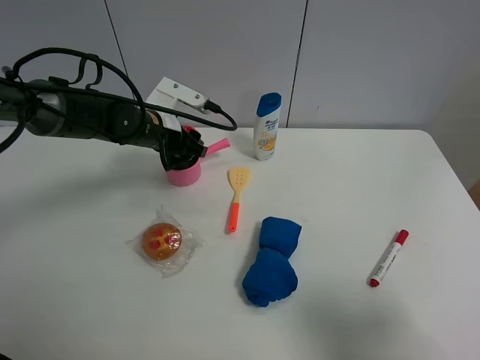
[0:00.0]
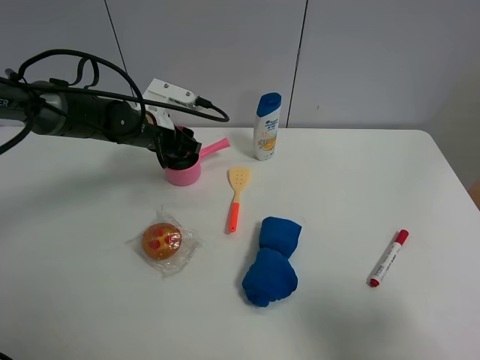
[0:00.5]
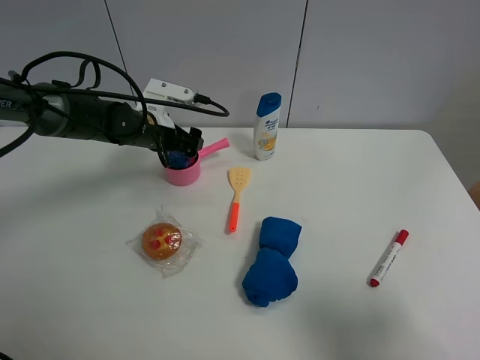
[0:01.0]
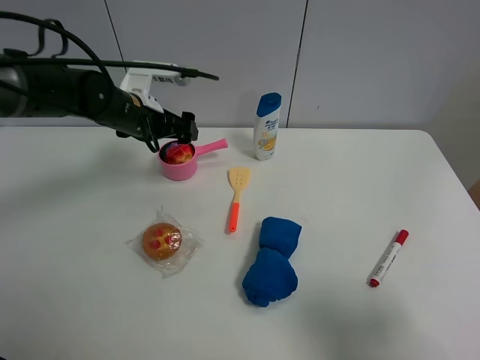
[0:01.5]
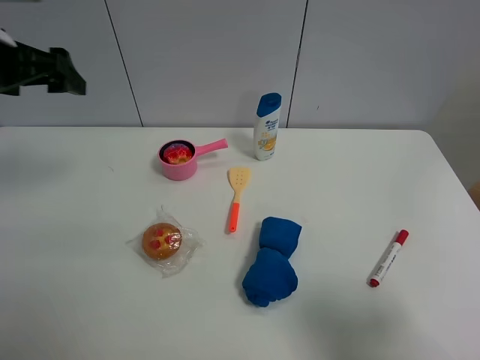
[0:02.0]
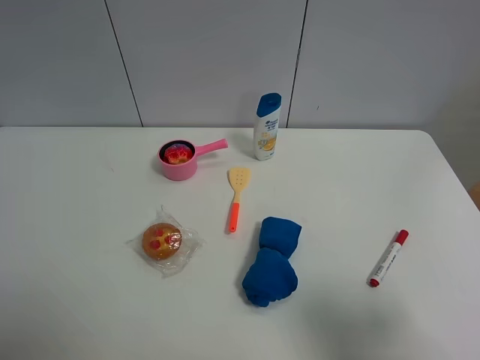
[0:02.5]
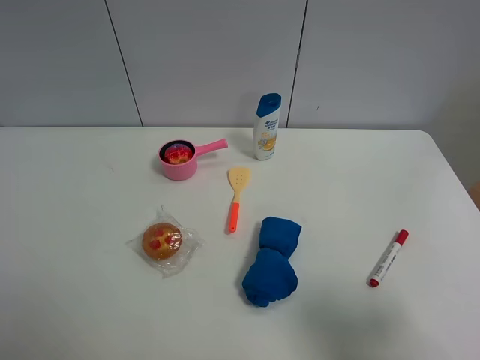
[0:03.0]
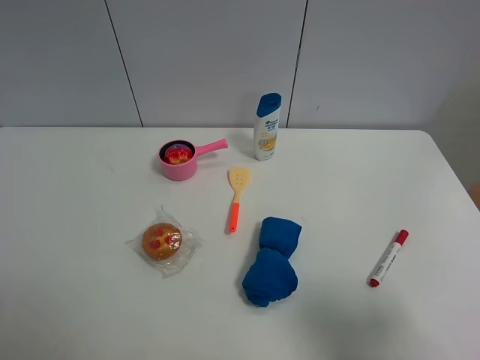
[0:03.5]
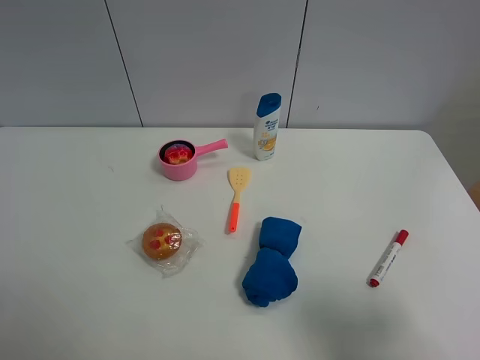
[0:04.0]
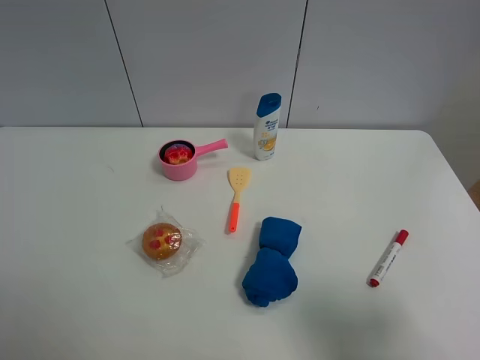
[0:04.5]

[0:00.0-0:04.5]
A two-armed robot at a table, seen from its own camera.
Task of the whole recording: the gripper move the object.
0:00.0 to 0:02.0: The left gripper heads upward, to the left and backward, covering approximately 25 cm, and opens up.
0:02.0 to 0:04.5: The left gripper goes approximately 30 cm backward.

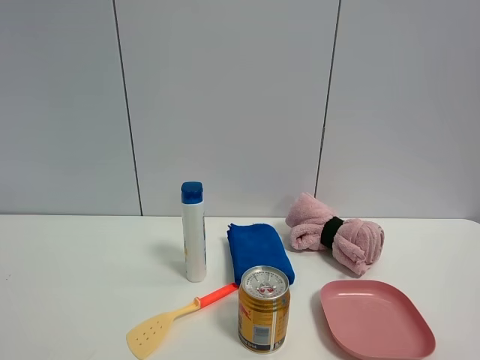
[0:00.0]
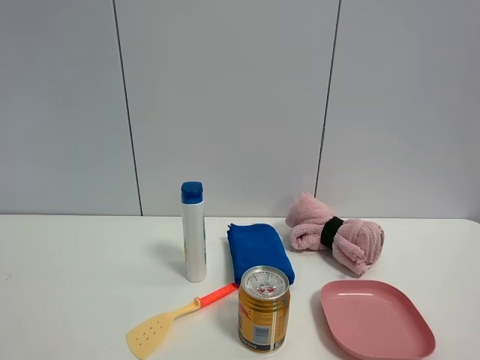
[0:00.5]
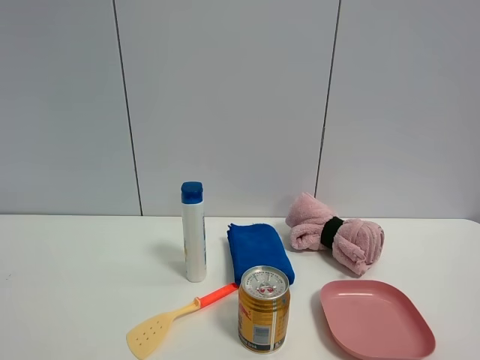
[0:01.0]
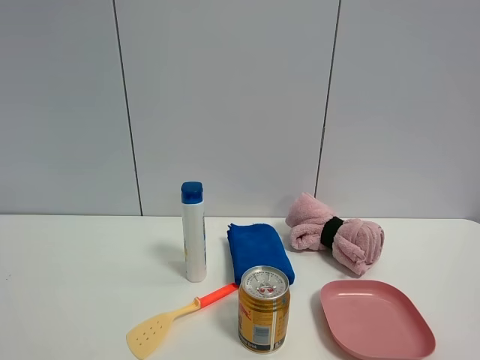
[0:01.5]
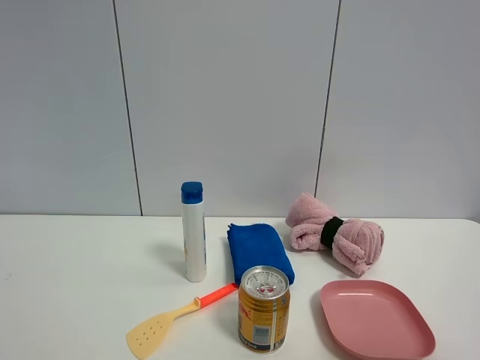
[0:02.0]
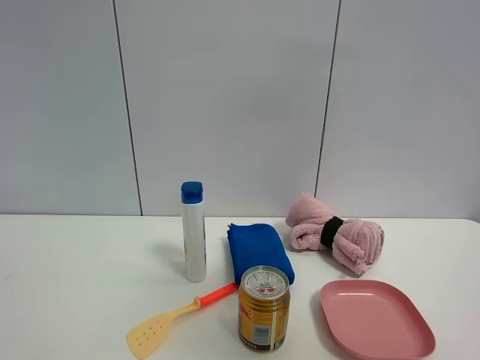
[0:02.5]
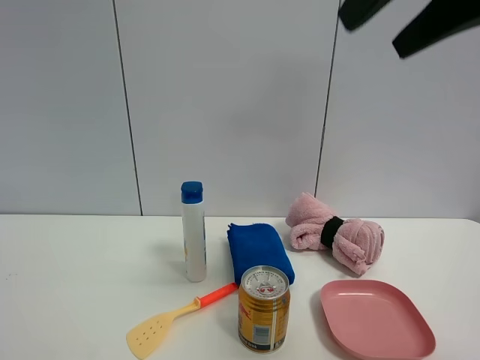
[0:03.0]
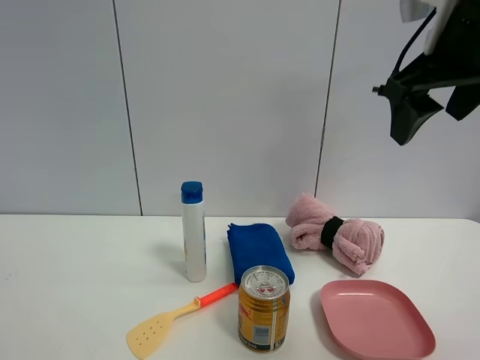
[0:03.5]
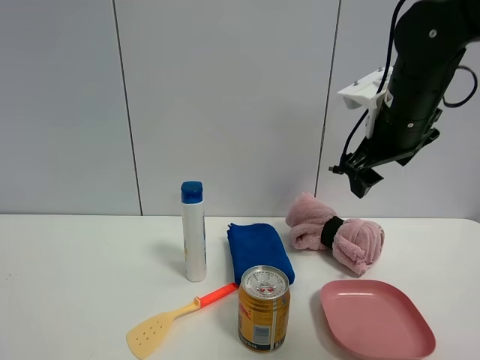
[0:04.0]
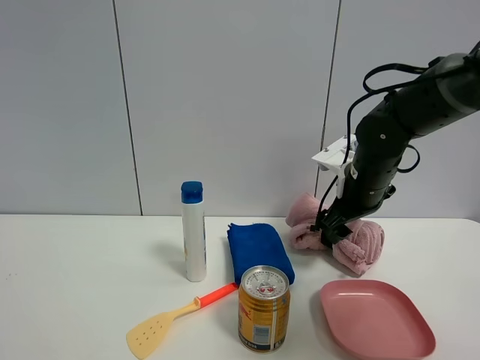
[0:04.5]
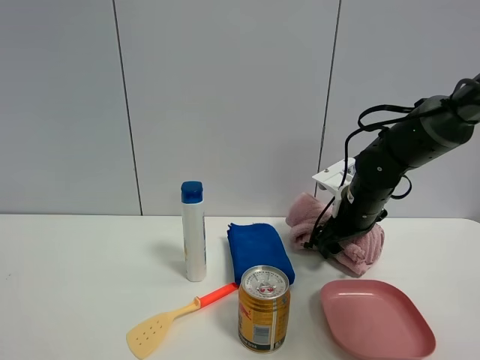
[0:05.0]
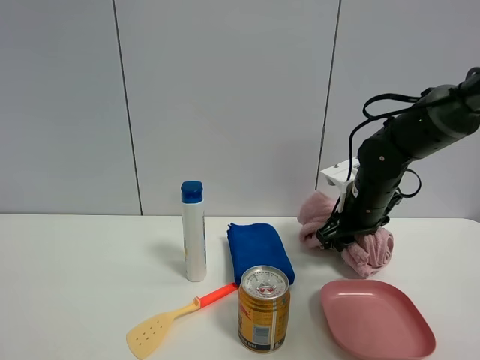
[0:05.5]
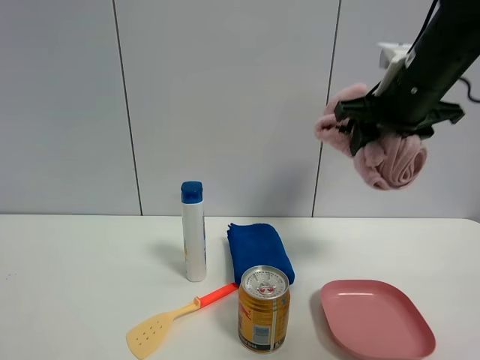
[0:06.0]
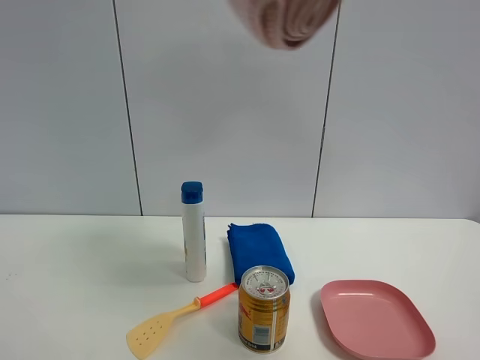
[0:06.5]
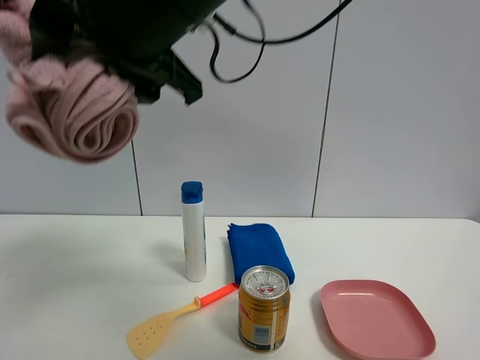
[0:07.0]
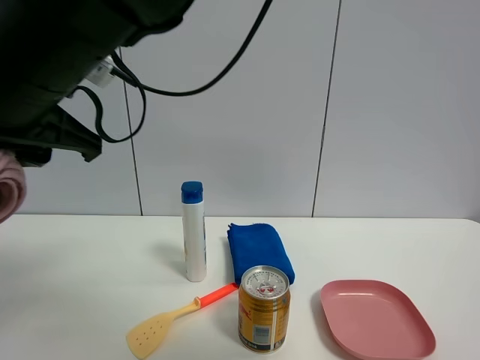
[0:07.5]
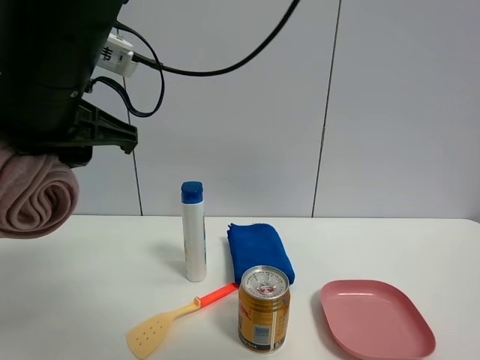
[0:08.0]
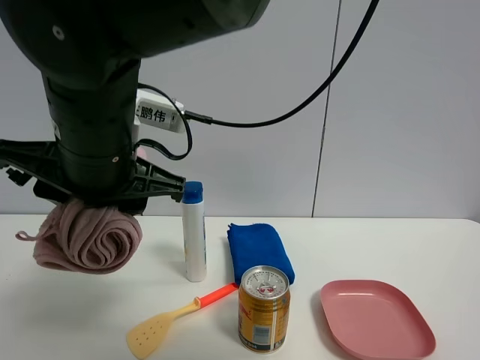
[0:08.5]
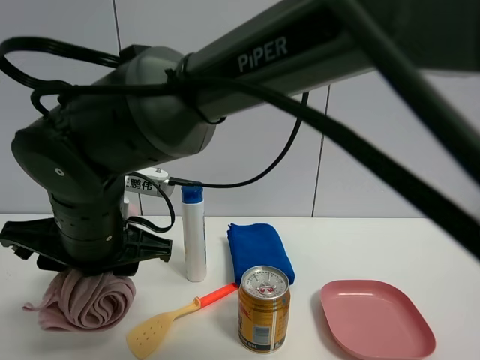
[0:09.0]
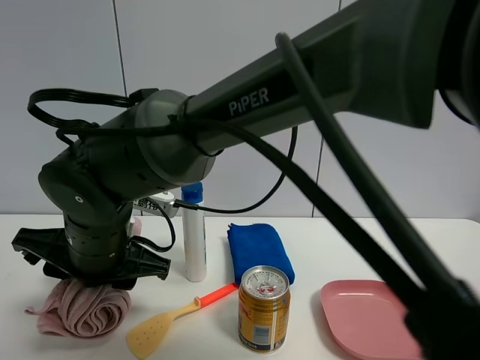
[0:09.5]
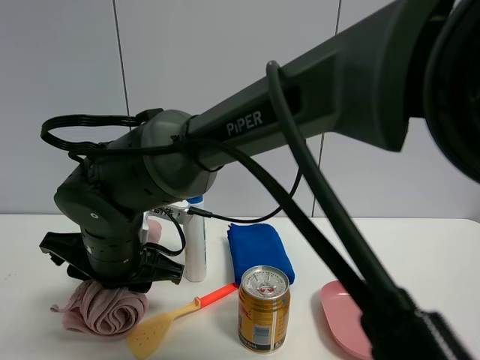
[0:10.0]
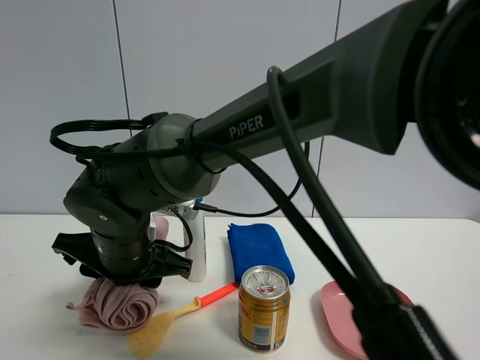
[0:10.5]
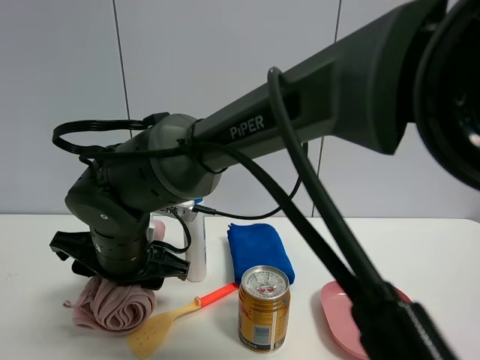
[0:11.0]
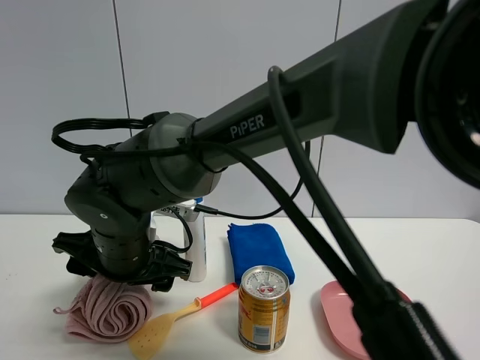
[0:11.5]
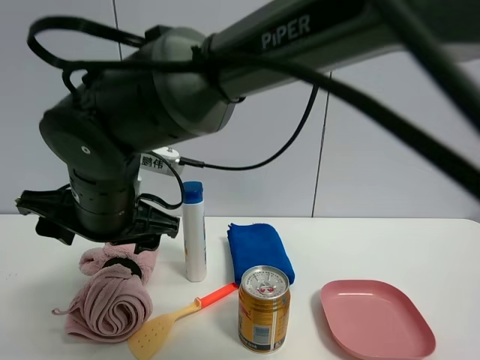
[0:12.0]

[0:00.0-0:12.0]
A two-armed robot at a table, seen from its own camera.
Task of the whole recording: the gripper move the object.
Step, 0:00.0 to 0:05.0: Grasp the pink towel with the right gripper.
Step, 0:05.5 to 0:11.0: Place the pink towel on the table with the right gripper.
0:02.0 to 0:04.0: The right gripper travels forward by some 35 cm.
0:04.0 to 0:06.0: The right gripper reaches some 15 cm downward, then returns, and closes its fingers.
0:06.0 to 0:08.0: The right gripper travels to the left and backward by about 35 cm.
0:08.0 to 0:10.0: The right gripper shifts about 15 cm downward.
0:10.0 to 0:12.0: The right gripper goes about 5 cm upward, and opens up.

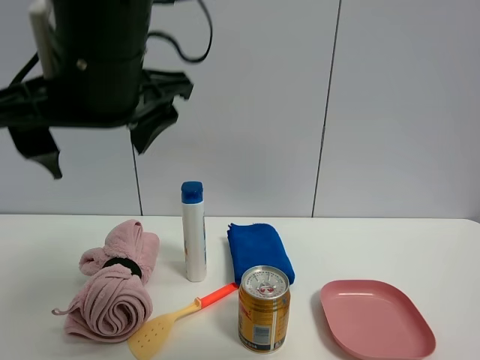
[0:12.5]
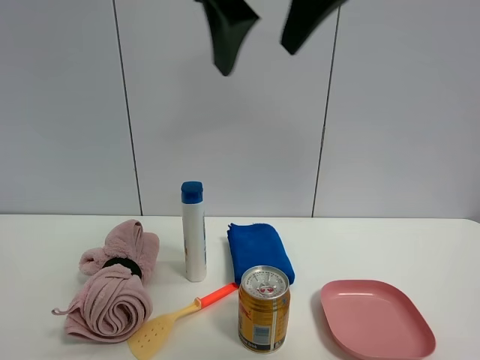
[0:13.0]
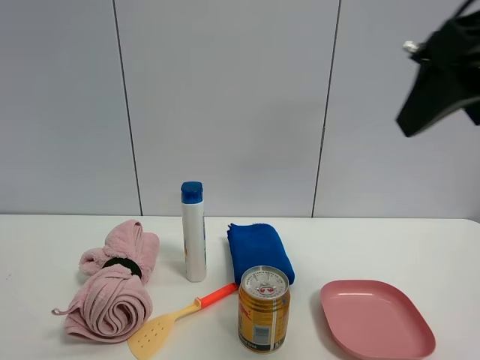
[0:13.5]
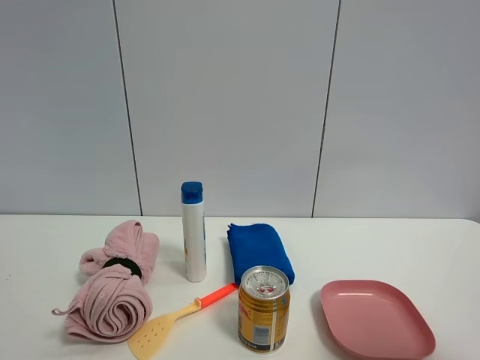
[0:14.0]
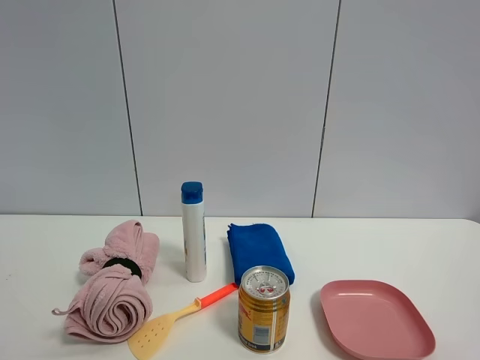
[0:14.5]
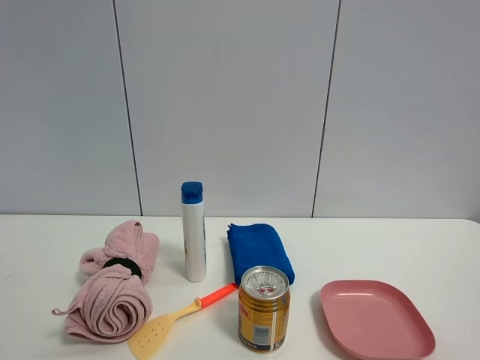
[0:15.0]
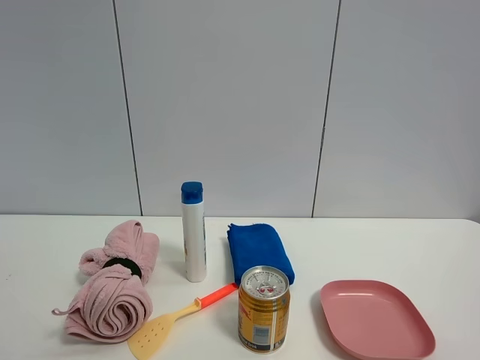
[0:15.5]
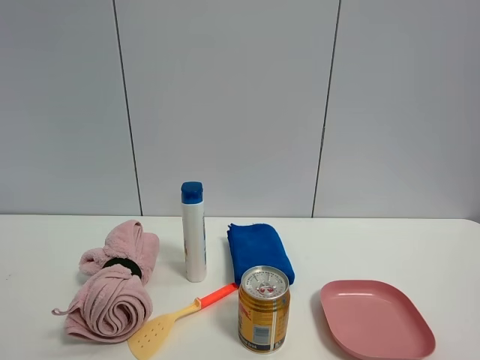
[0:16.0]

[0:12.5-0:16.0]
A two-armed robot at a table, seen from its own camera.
Task of the whole recording: the gripper move the object.
0:12.5 to 0:14.5: The right gripper shifts some 50 cm to the right and backward.

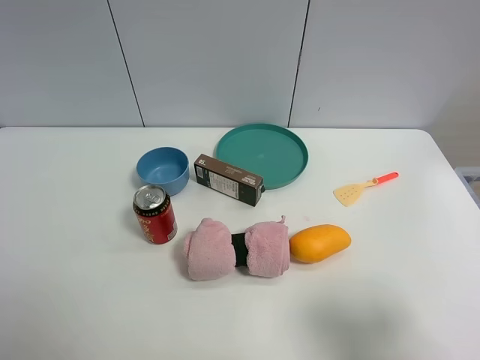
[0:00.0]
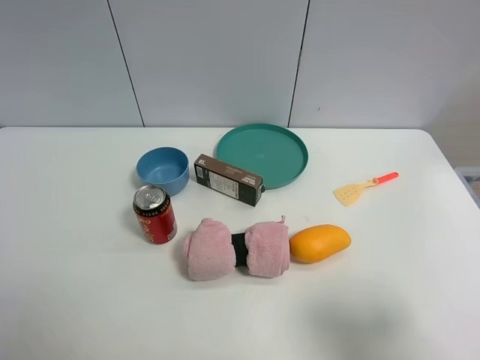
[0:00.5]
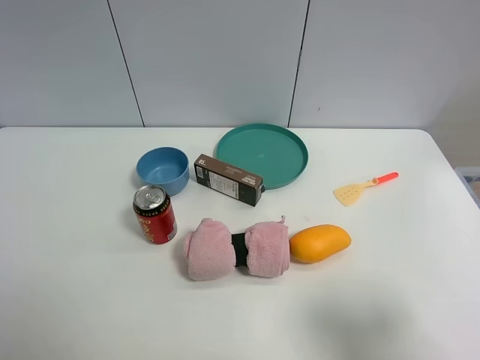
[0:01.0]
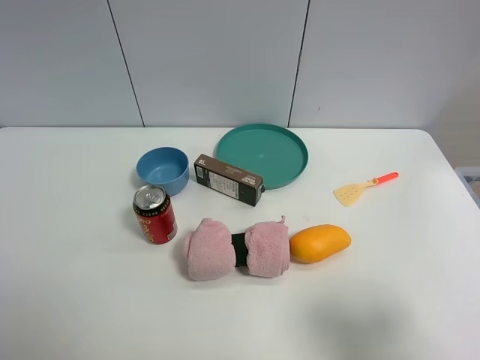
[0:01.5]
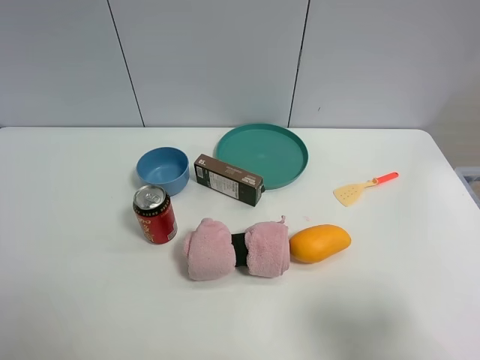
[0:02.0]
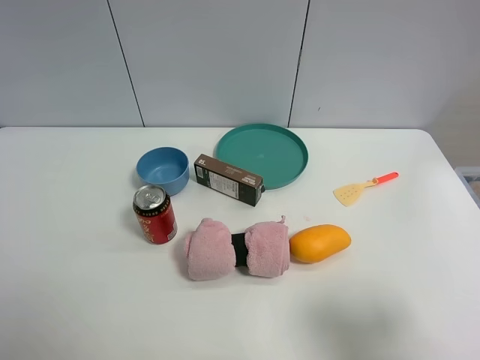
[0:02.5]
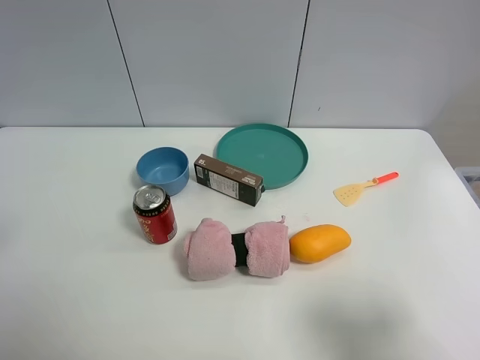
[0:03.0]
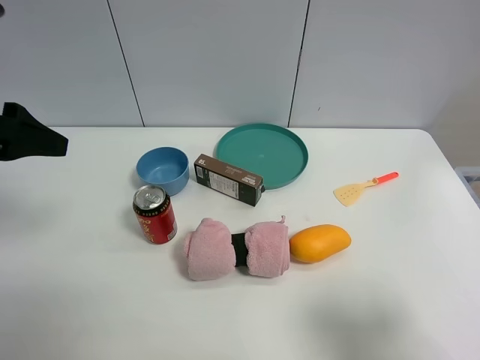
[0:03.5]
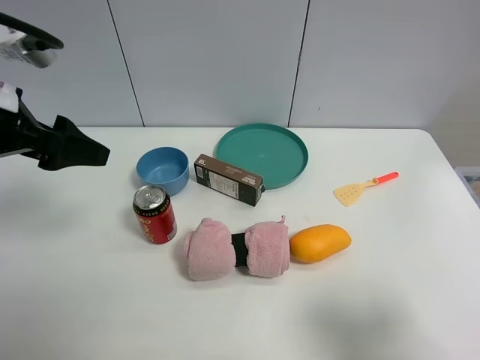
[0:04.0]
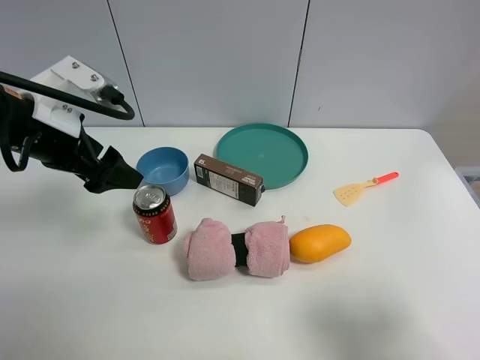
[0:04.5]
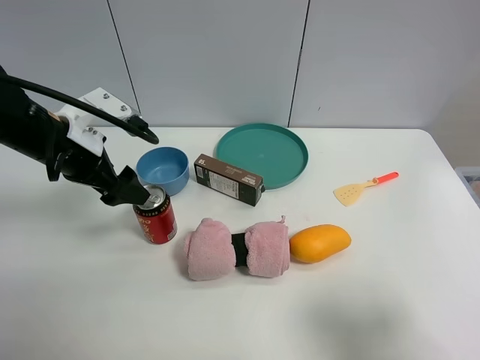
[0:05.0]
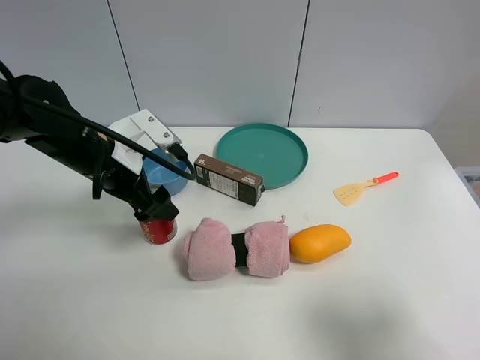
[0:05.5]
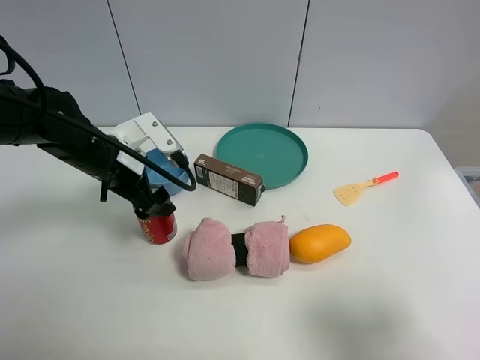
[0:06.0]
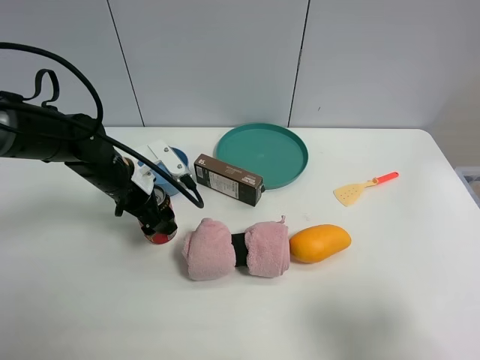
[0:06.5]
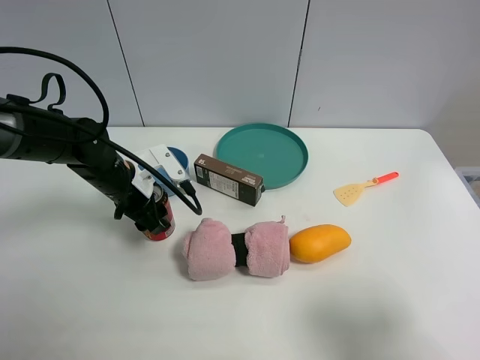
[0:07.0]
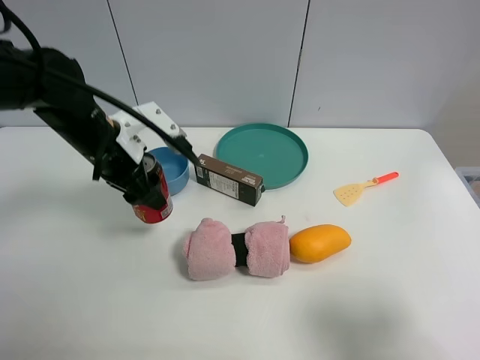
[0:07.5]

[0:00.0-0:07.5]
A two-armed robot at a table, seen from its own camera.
Task of the whole recording: the gripper move the object.
Step, 0:00.0 to 0:06.5: Grasp the Jia Duo Bao with the left gripper.
0:00.0 to 0:02.0: Both grippers stay about where they are.
0:02.0 to 0:04.0: The left gripper moves forward, about 25 cm.
0:04.0 to 0:05.5: The left gripper travels downward, to the right and forward by roughly 15 cm.
0:05.5 to 0:07.5: The left gripper reaches some 5 cm downward, then returns, and closes.
